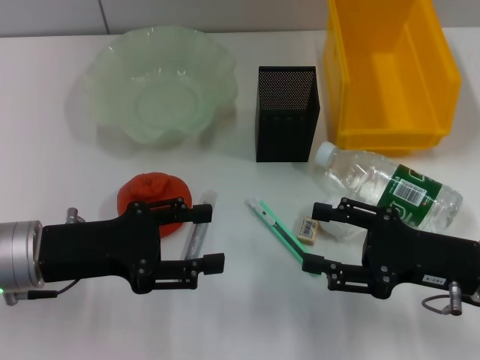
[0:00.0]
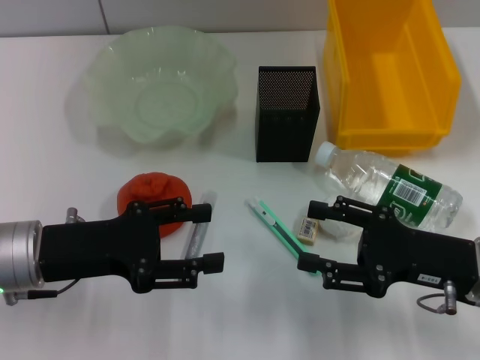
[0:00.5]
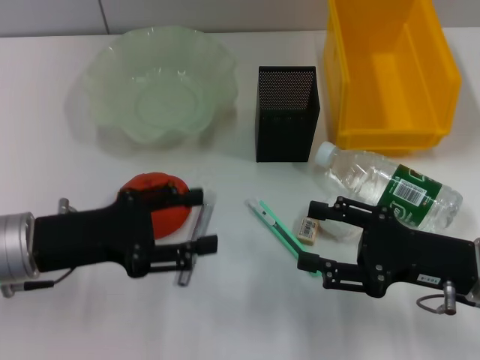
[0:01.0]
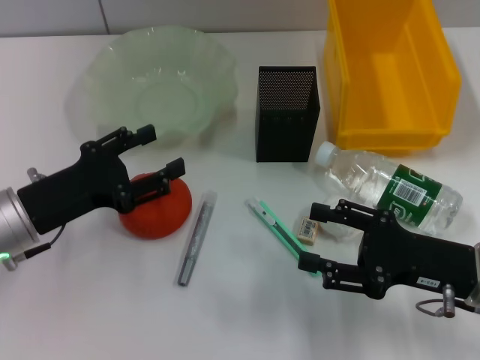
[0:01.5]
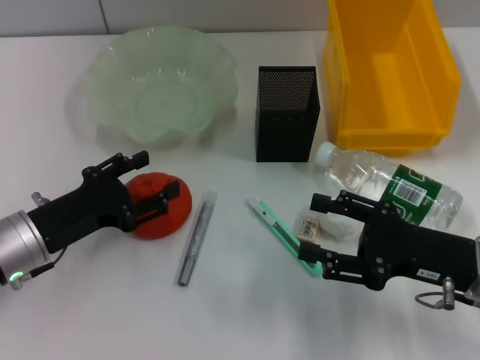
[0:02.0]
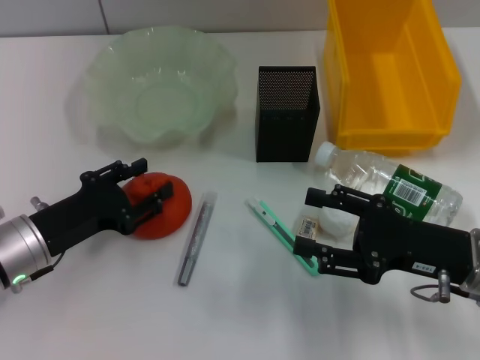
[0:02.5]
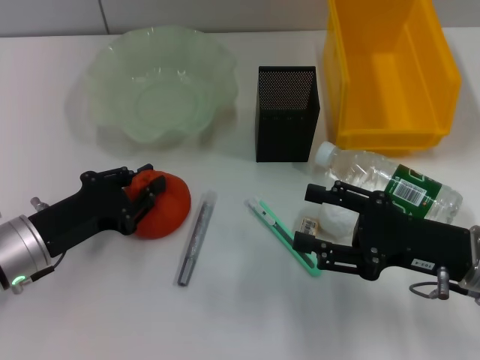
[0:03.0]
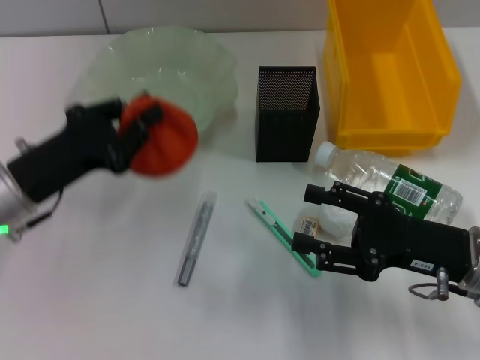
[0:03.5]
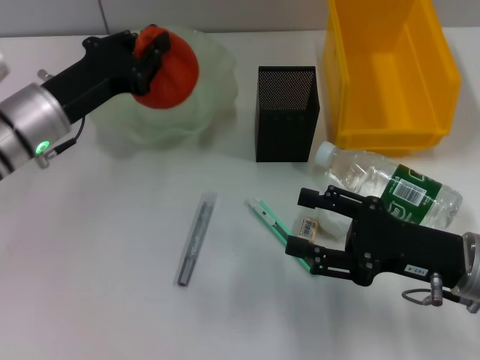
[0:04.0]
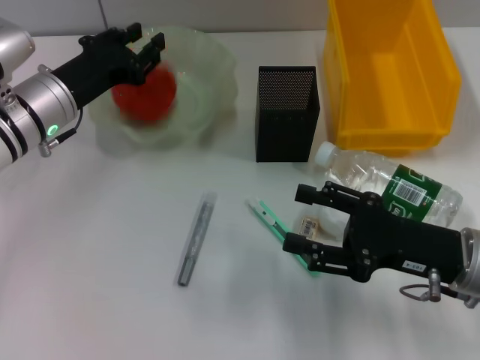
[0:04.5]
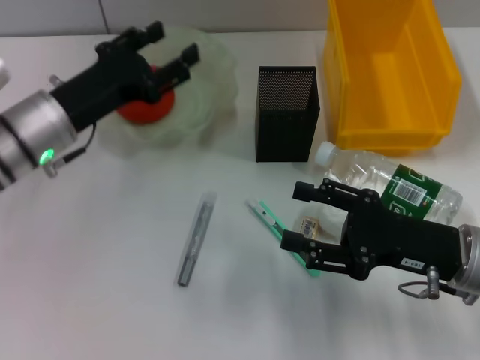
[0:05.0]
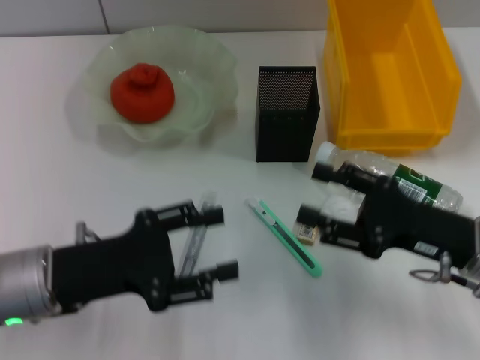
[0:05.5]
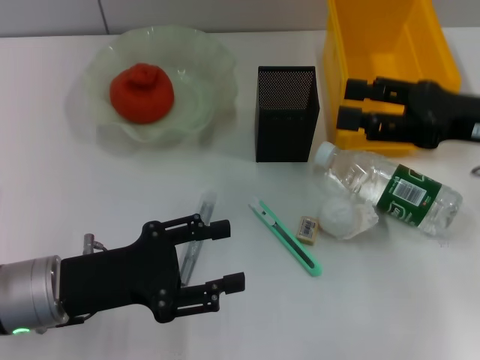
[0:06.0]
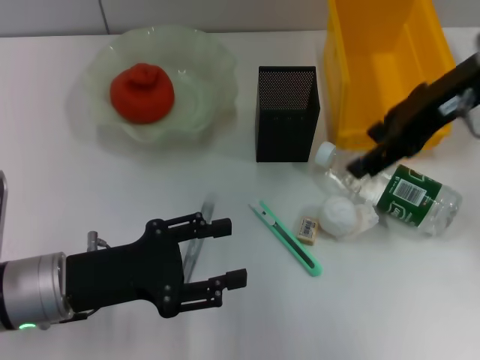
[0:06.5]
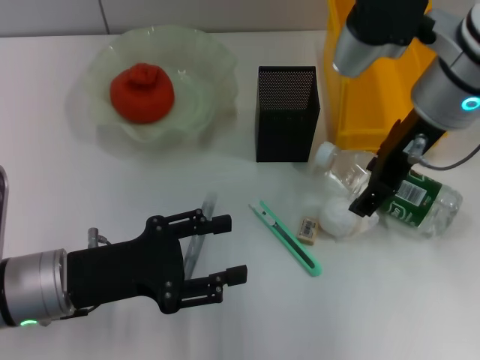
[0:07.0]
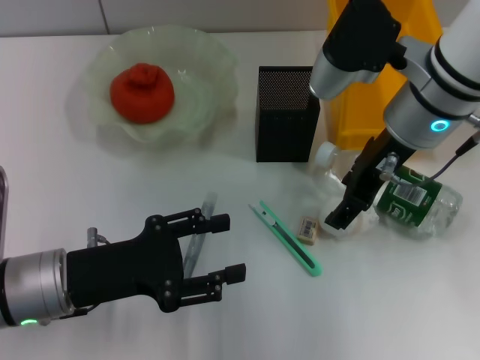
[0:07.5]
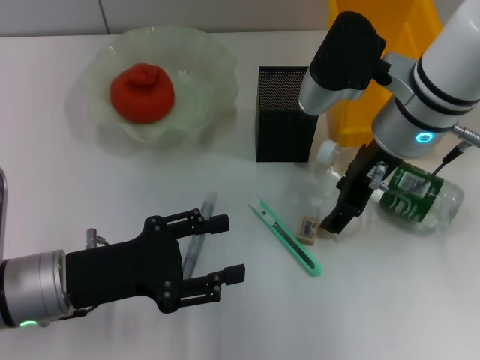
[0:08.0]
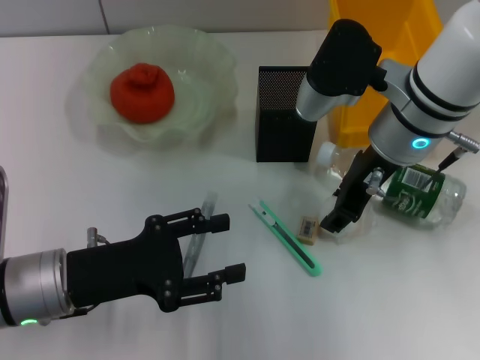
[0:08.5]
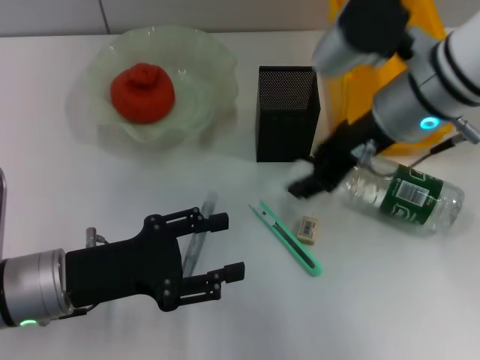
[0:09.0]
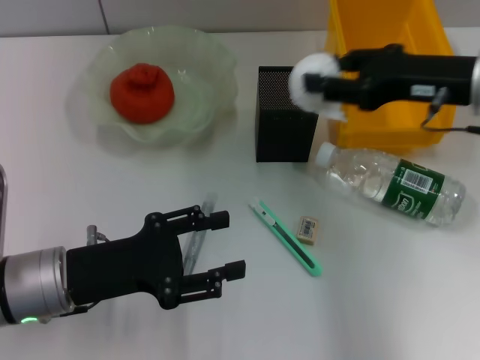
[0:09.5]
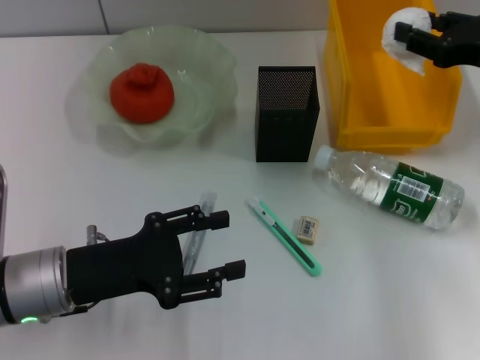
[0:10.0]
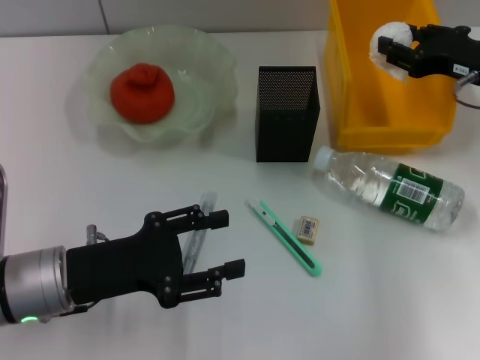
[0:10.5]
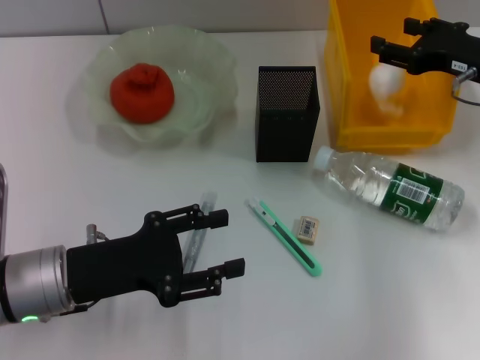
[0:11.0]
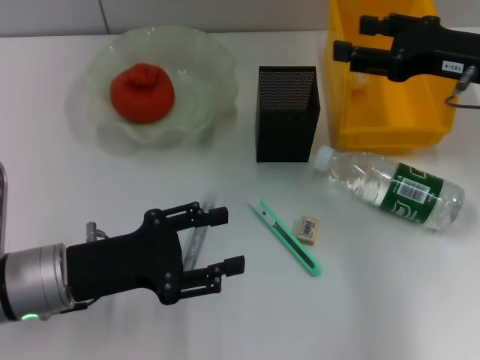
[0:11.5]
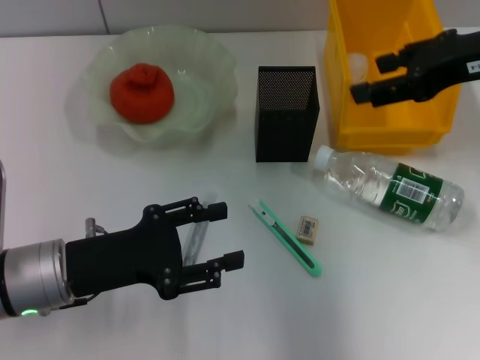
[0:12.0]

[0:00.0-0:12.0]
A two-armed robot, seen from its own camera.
Step, 0:00.0 to 0:03.0: Grab the orange with the left hand.
Step, 0:03.5 to 0:05.0: Place the orange into the fruit bowl with the left hand.
Step, 0:05.5 to 0:08.5: Grab the paper ball with the right hand.
Step, 0:09.0 to 0:11.0: Place the paper ball into the trash can with the right hand.
0:00.0 to 0:02.0: The left gripper moves about 5 cm.
0:02.0 to 0:04.0: The left gripper heads forward and upward, covering some 10 cm, and closes up.
0:04.0 to 0:06.0: The right gripper is displaced upward and forward by some 15 cm, while the left gripper goes some 15 cm backward, and opens its fingers.
0:06.0 to 0:08.0: The right gripper heads to the left, covering about 15 cm.
0:08.0 to 0:10.0: The right gripper moves to the right, about 15 cm, and closes its fingers.
0:10.0 to 0:12.0: The right gripper travels upward and to the left by about 10 cm.

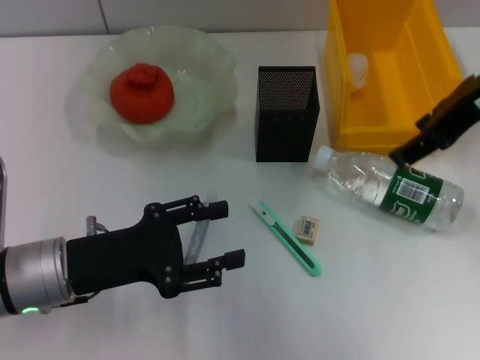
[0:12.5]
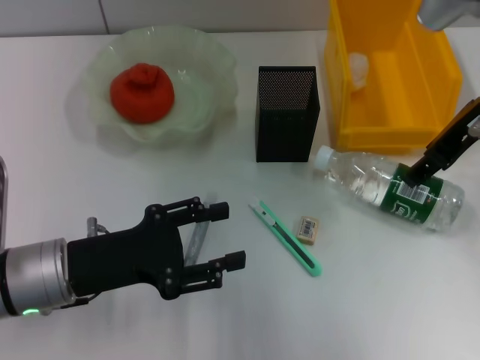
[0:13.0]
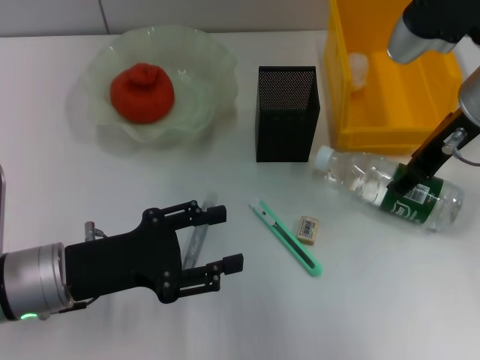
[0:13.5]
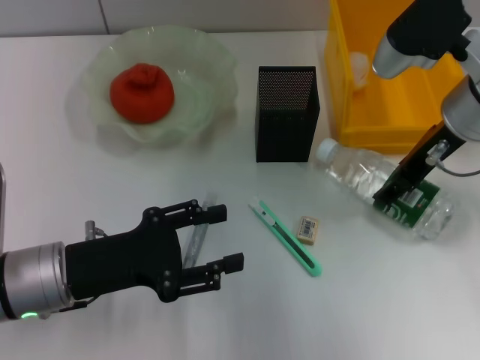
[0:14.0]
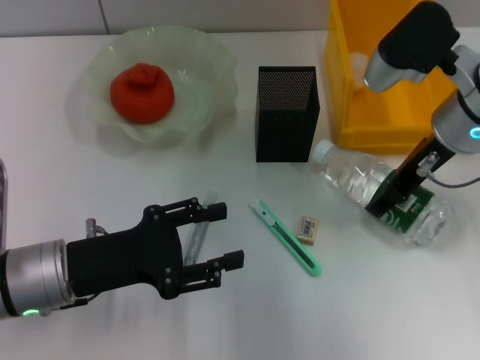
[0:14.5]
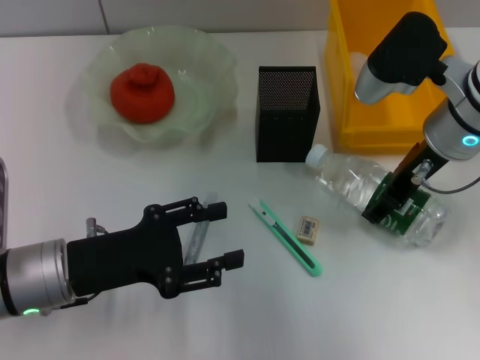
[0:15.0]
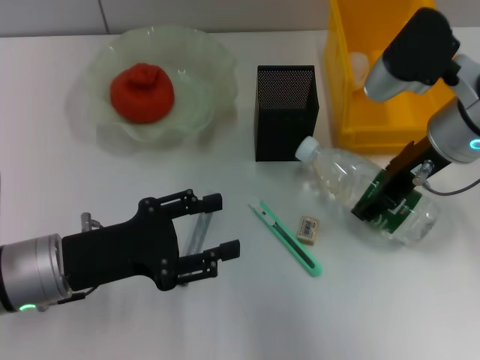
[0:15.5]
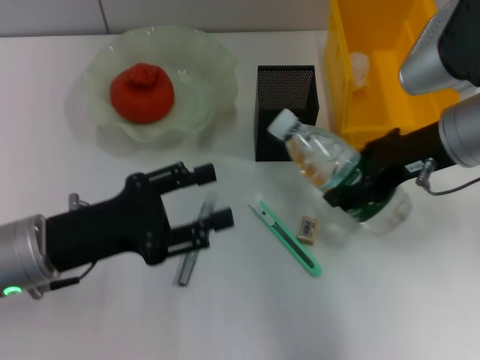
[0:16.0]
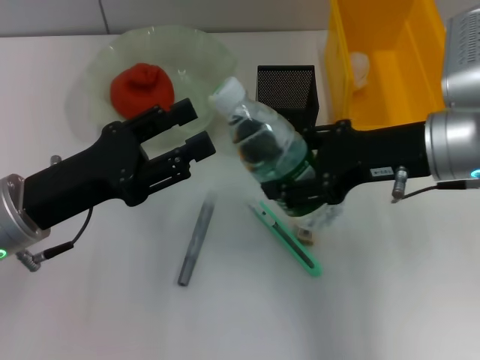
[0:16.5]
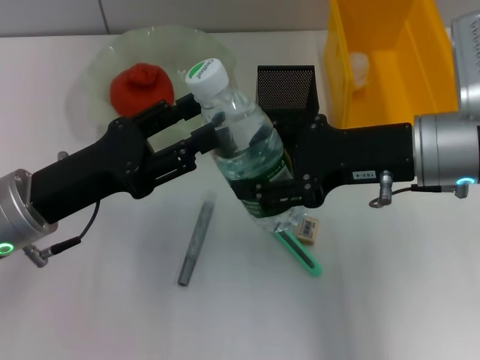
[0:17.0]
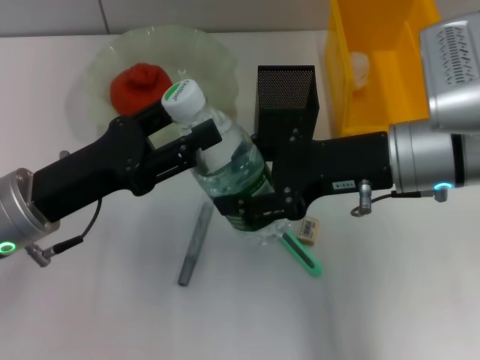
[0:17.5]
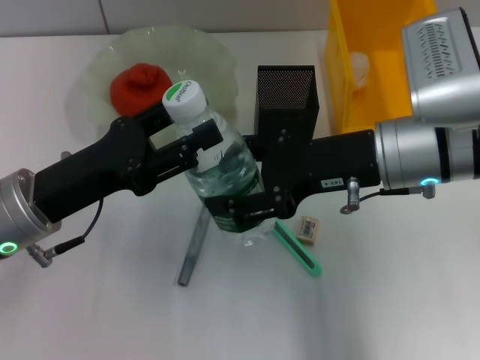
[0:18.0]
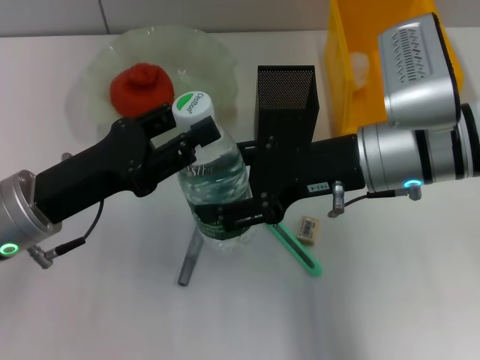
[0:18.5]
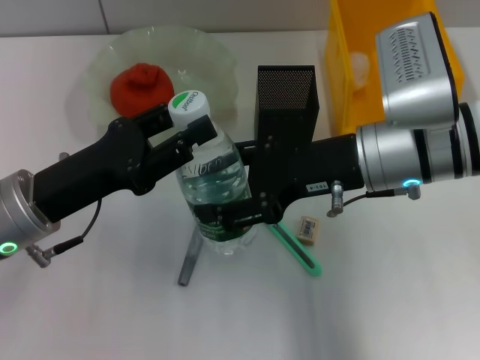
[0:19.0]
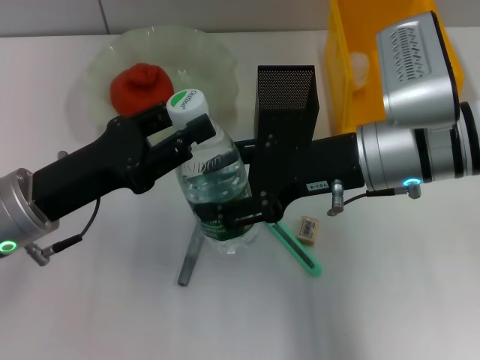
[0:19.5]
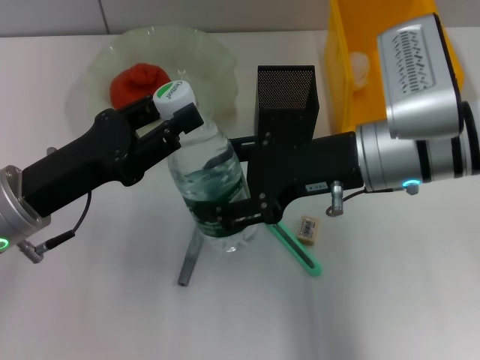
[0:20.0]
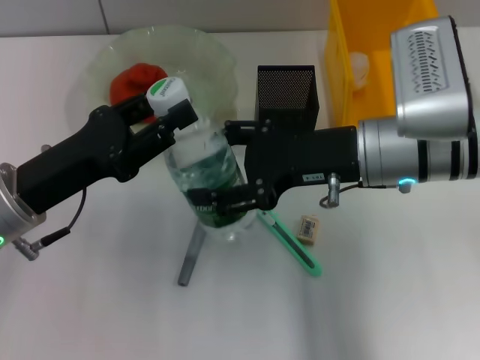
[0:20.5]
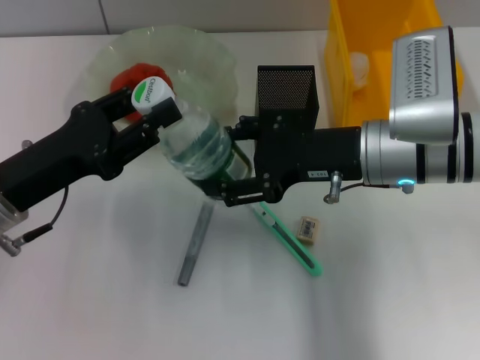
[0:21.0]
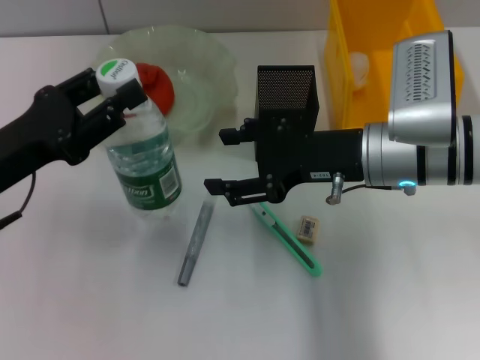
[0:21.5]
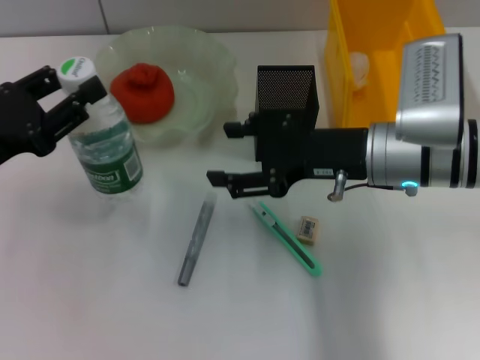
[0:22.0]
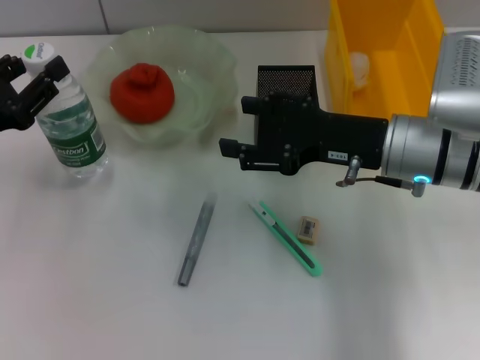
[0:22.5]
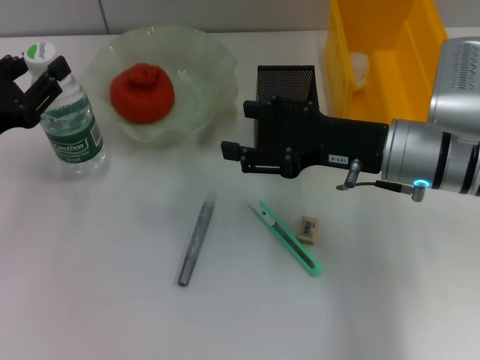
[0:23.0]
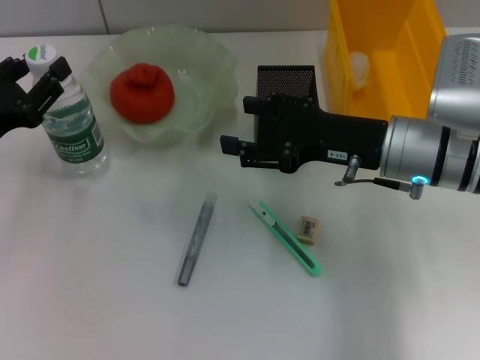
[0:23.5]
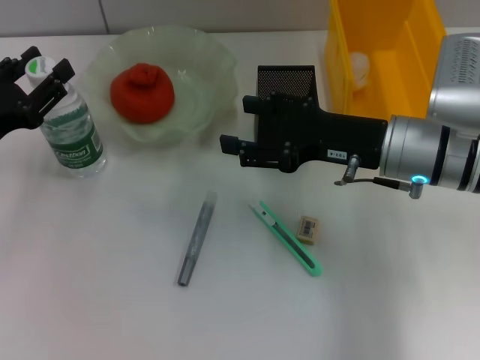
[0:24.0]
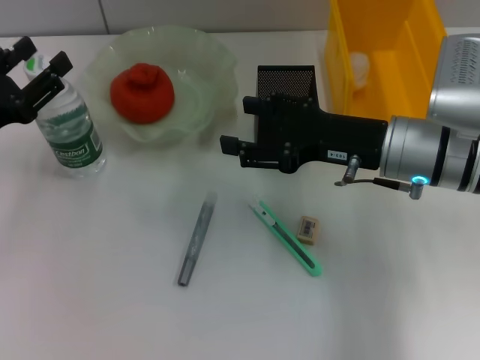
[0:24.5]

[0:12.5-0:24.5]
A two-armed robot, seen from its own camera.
Step, 0:12.5 to 0:15.0: Grab the water bottle with the right hand.
Step, 0:15.5 to 0:21.0: Pass the water bottle from the right hand to the left hand.
0:12.5 to 0:14.5: The right gripper heads downward, covering about 10 cm.
0:14.5 to 0:16.5: The right gripper travels backward by approximately 5 cm.
0:16.5 to 0:18.5: The right gripper shifts by approximately 5 cm.
0:18.5 to 0:20.5: The grippers stay close to where they were, moving slightly.
0:20.5 to 0:22.5: The left gripper heads to the left, covering approximately 10 cm.
0:22.5 to 0:24.5: The grippers stay close to where they were, moving slightly.

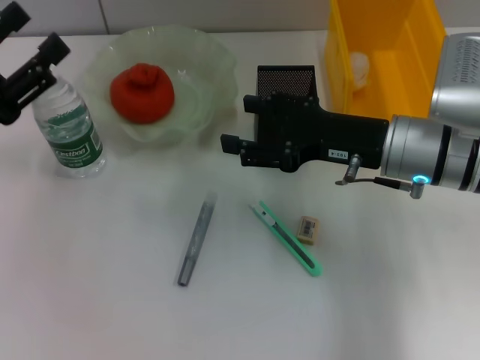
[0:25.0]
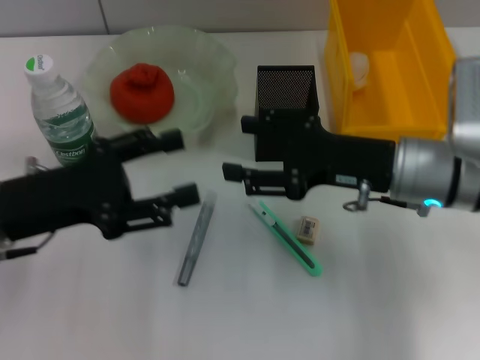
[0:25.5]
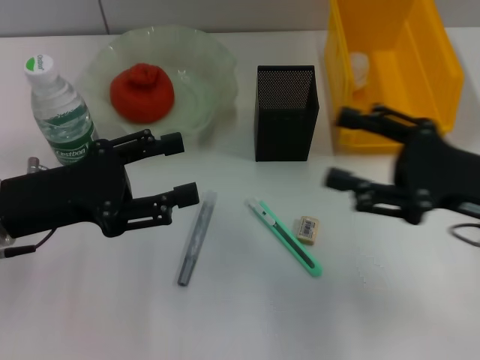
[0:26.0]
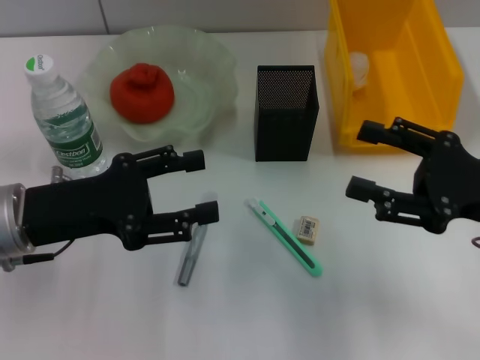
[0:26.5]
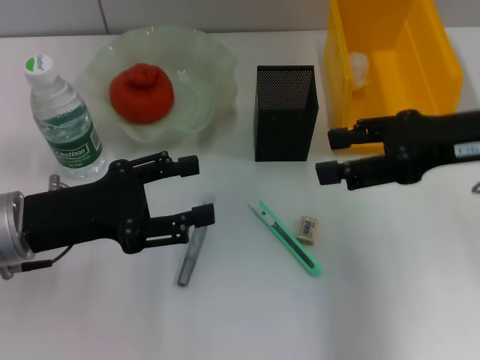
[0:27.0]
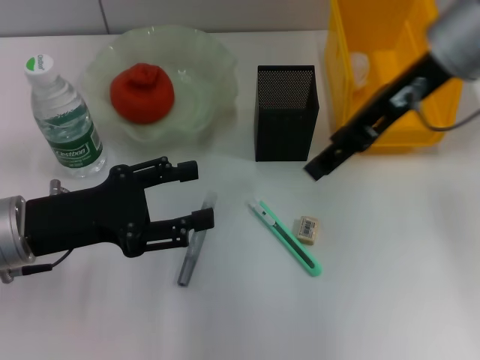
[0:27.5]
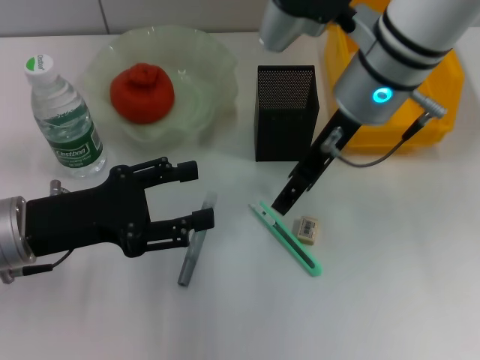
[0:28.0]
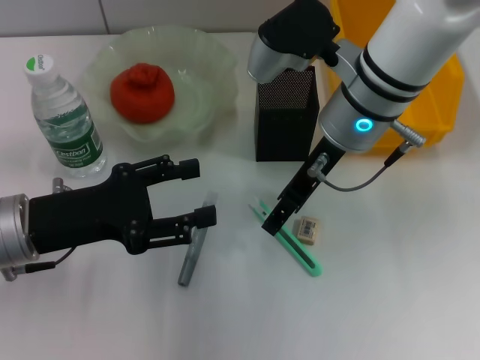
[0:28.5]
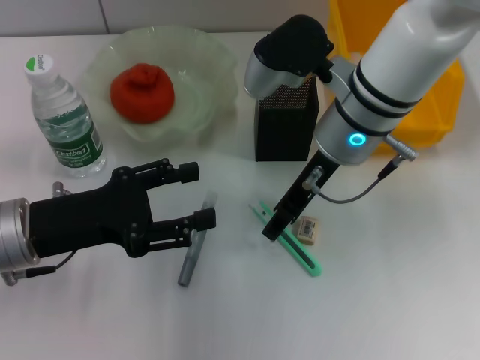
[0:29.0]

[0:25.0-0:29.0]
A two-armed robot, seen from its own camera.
0:25.0 to 0:27.0: The right gripper shifts about 10 cm upward and to the right, while the left gripper is displaced to the right by roughly 5 cm.
0:27.0 to 0:29.0: The right gripper is displaced to the left and forward by some 15 cm.
